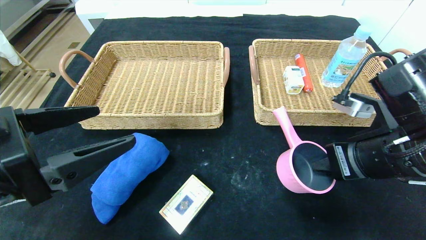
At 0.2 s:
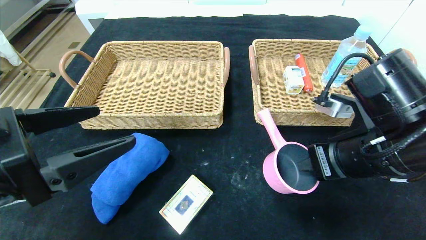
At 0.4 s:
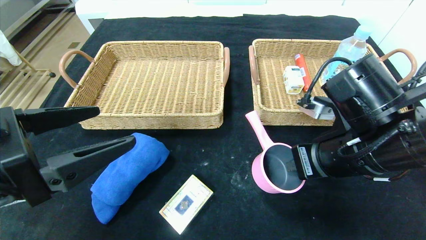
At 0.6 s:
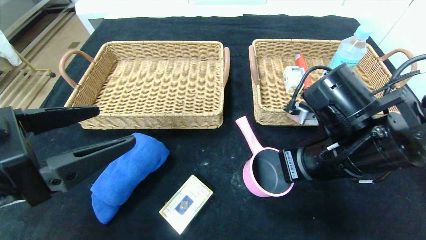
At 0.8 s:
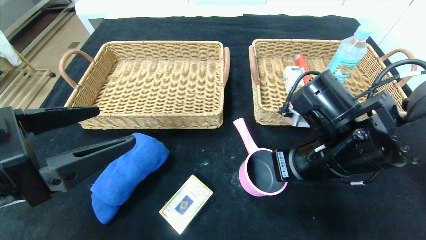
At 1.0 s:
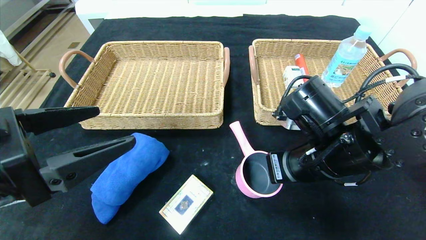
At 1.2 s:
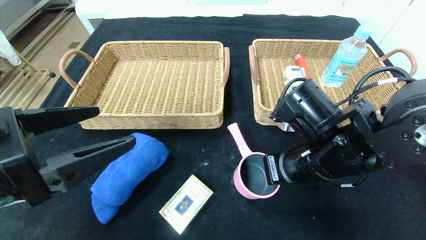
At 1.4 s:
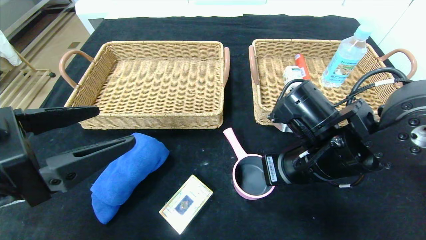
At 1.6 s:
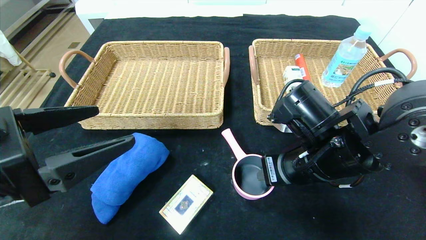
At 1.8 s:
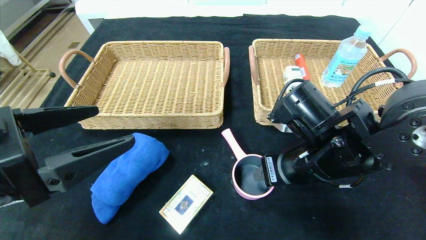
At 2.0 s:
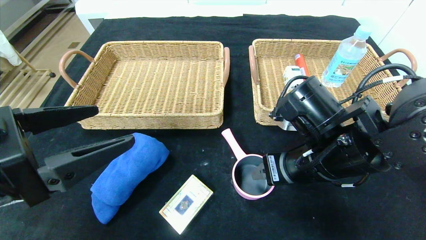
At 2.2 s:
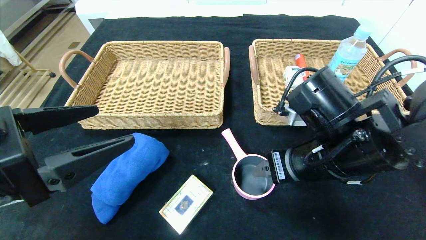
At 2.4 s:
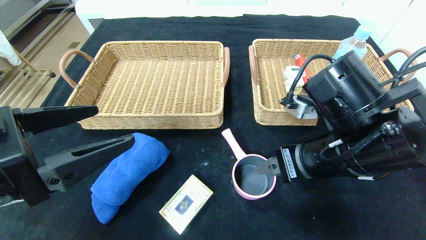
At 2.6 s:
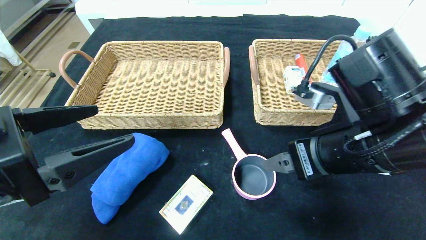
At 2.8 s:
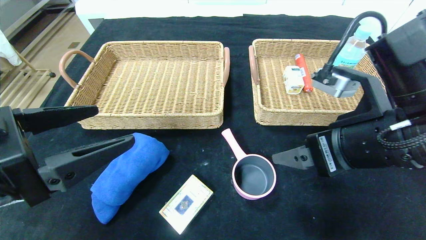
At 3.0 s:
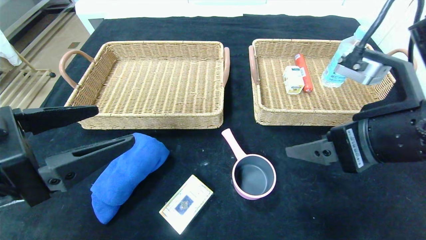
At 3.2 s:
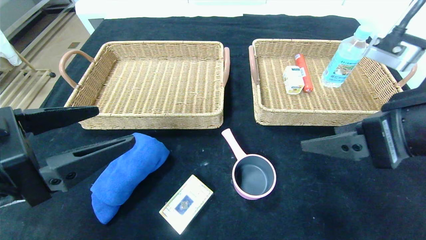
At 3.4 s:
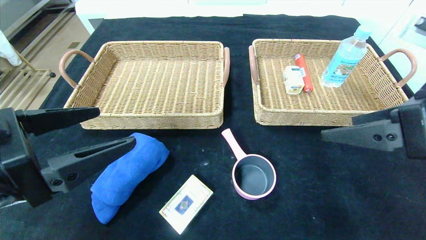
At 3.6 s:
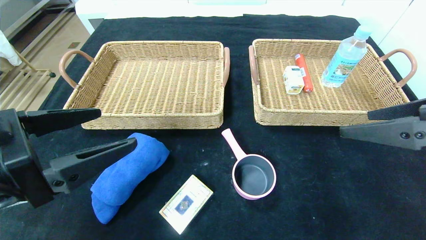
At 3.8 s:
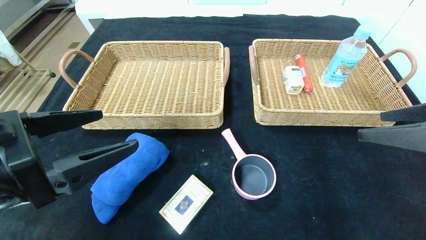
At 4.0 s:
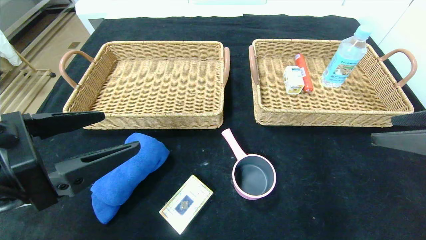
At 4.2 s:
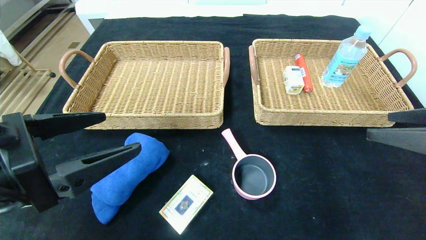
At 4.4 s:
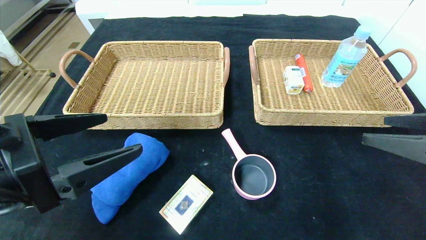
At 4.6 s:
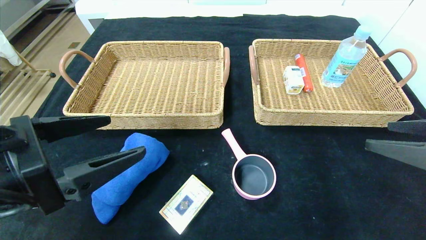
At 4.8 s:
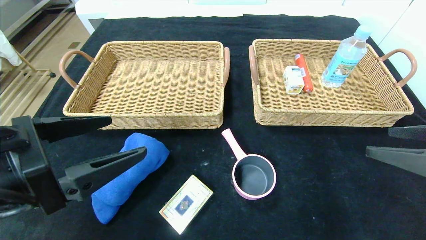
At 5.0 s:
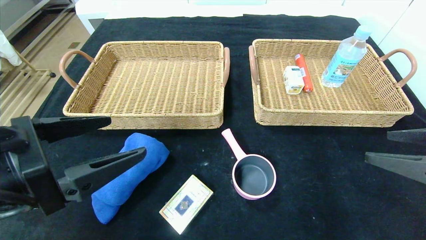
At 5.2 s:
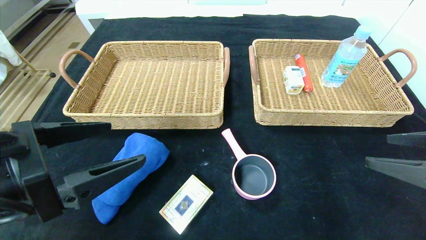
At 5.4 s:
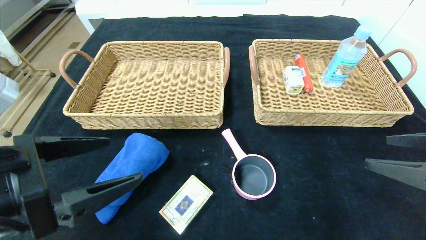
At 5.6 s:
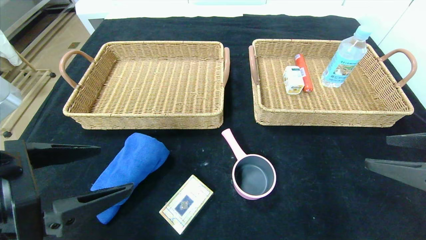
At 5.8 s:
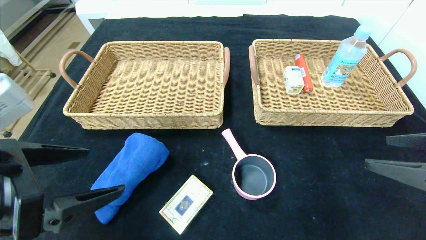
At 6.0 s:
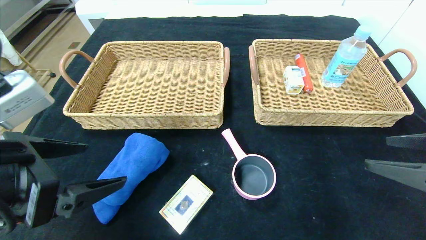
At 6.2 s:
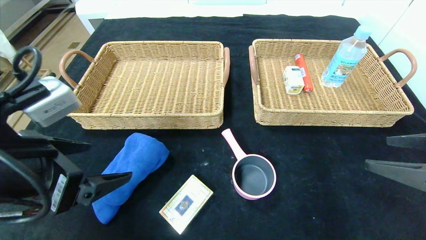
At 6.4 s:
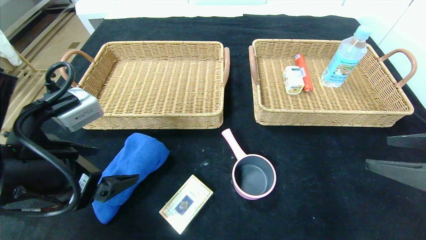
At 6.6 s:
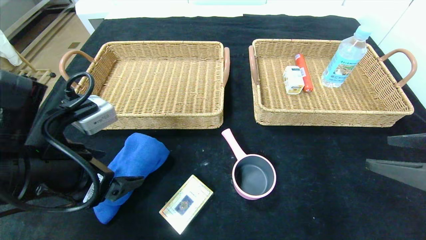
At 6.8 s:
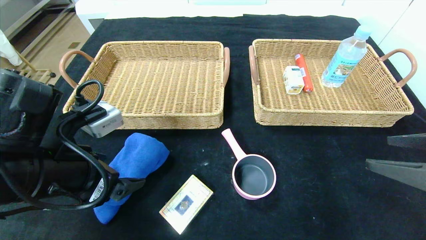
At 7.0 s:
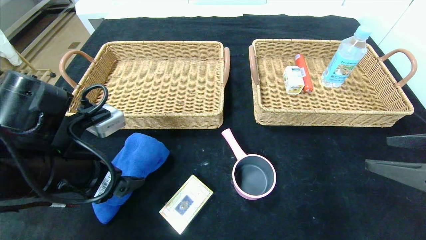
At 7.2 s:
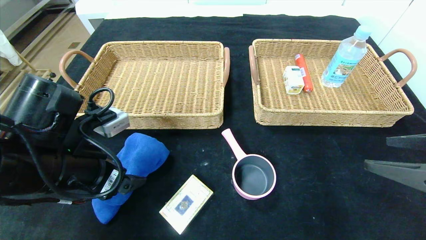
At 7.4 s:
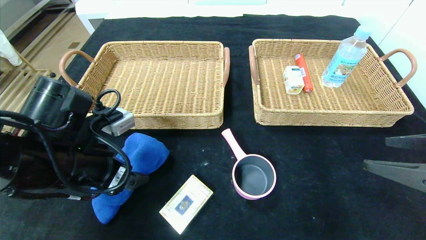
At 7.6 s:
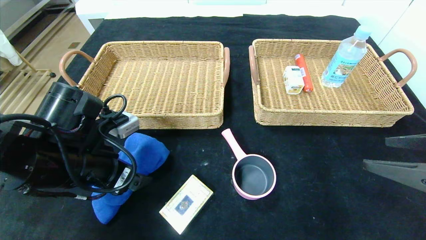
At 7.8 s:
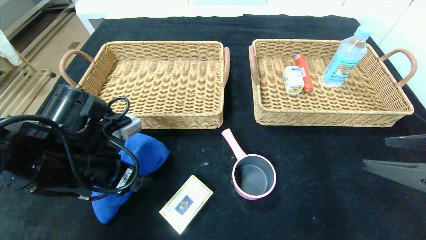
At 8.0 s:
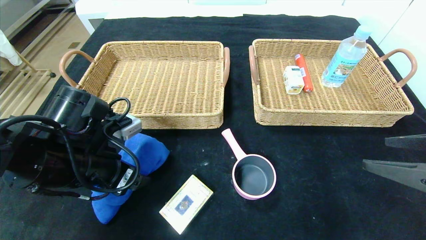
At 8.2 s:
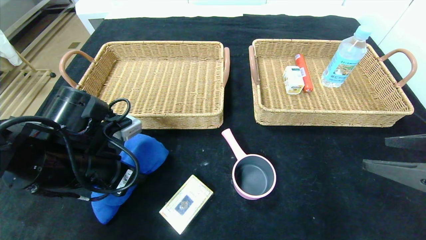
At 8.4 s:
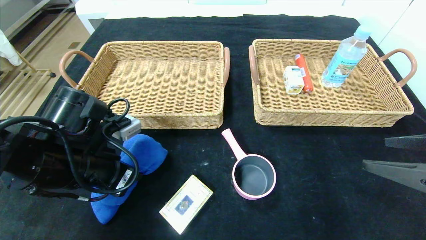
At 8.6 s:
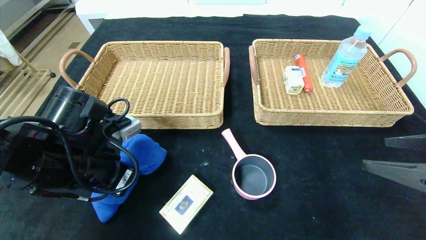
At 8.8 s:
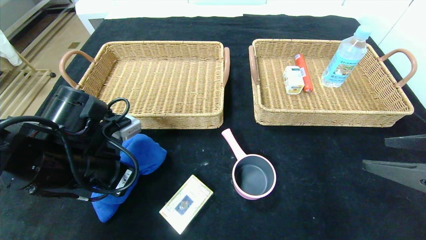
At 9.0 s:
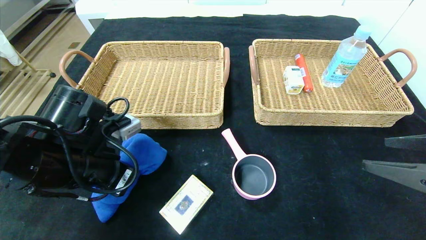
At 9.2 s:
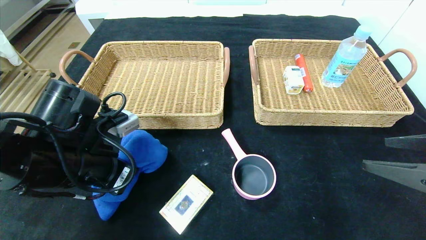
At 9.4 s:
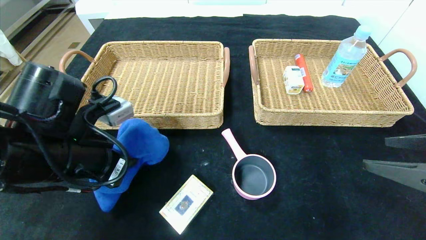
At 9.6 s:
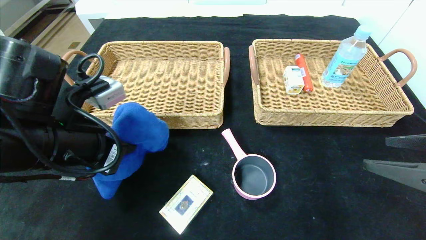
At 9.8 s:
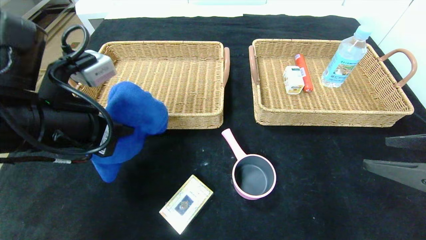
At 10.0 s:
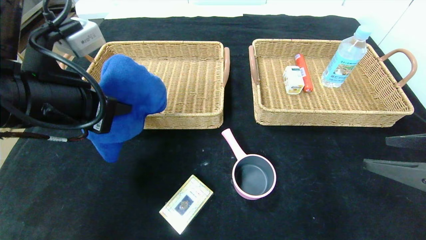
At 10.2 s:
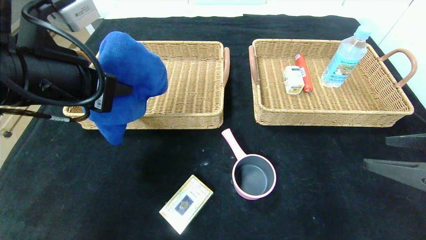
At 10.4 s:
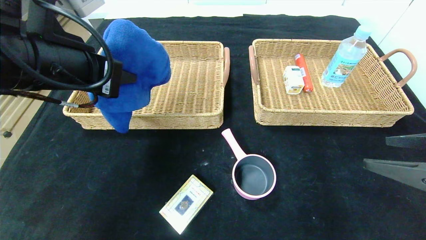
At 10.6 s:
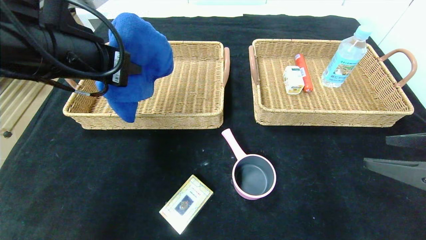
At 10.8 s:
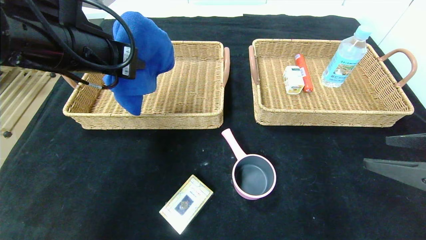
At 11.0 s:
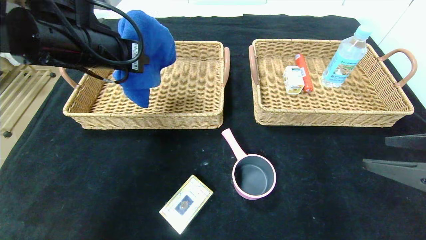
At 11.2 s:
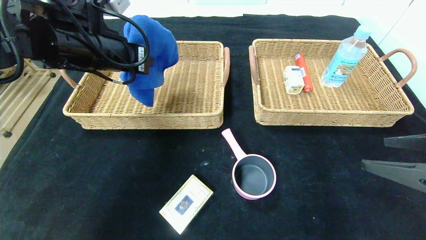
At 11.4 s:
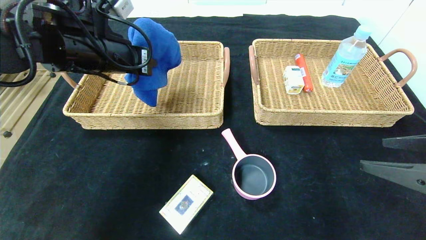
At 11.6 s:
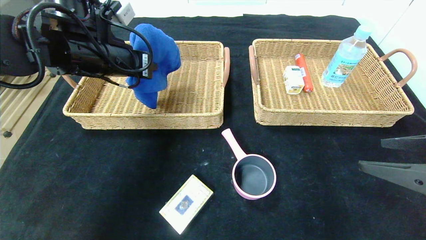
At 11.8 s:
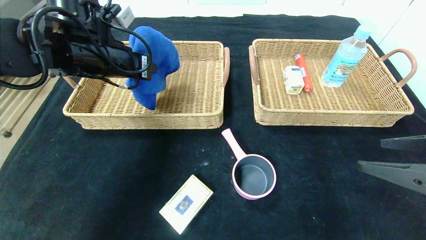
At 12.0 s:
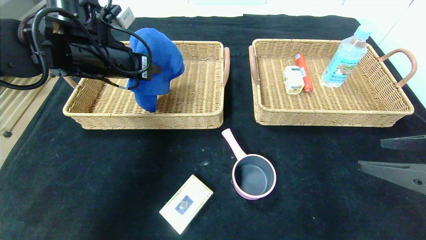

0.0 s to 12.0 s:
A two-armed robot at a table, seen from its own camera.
Step, 0.0 to 3.0 s: Place the pink pot in the center of the table.
0.0 to 1.6 s: The right gripper is displaced to the left by about 10 cm, and opens.
1.6 to 3.0 s: The right gripper heads upward, to the right and backward, covering approximately 10 cm, and opens.
3.0 to 4.4 s: The right gripper moves to the right, roughly 10 cm.
6.0 to 7.6 s: The left gripper shifts approximately 10 cm forward and downward.
7.6 to 9.0 s: The left gripper closes its fingers.
9.0 to 10.4 s: The left gripper moves upward, some 15 cm.
10.4 to 12.0 s: The left gripper moves forward, some 10 cm.

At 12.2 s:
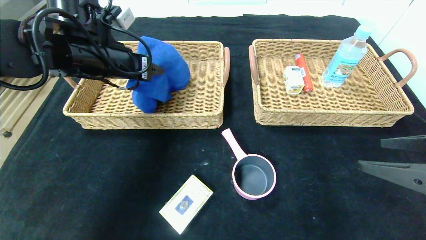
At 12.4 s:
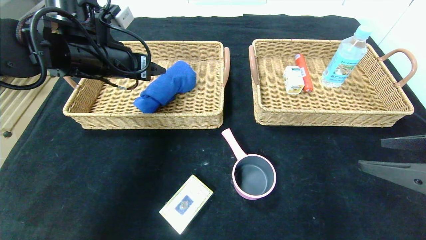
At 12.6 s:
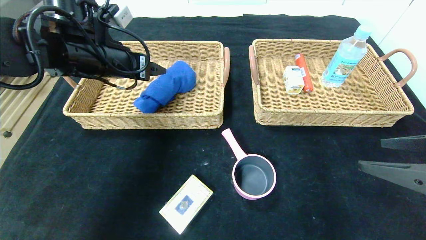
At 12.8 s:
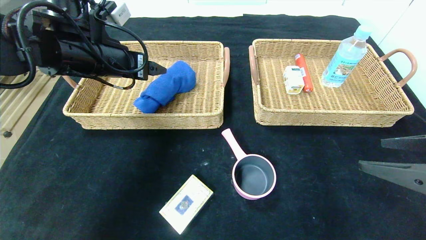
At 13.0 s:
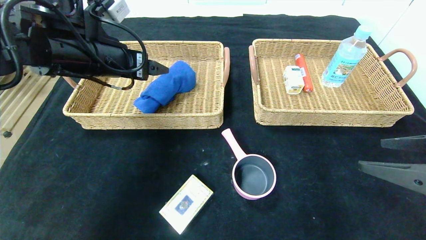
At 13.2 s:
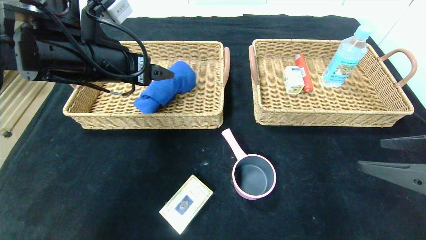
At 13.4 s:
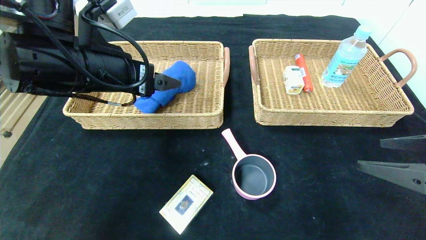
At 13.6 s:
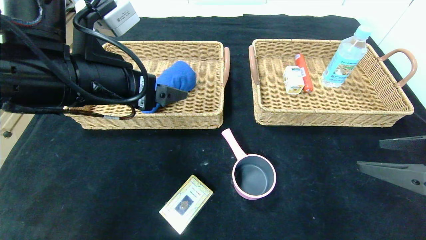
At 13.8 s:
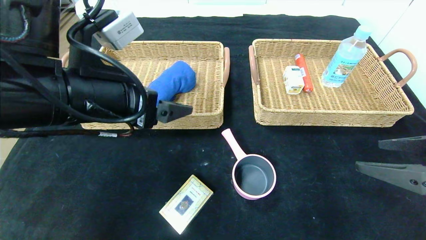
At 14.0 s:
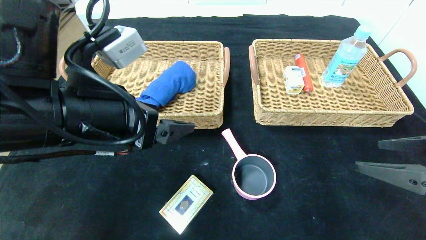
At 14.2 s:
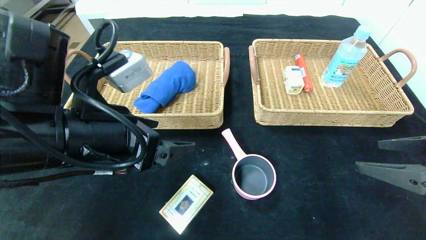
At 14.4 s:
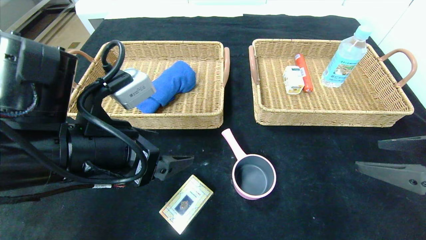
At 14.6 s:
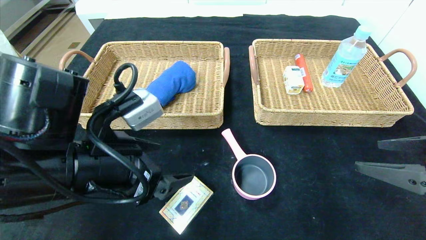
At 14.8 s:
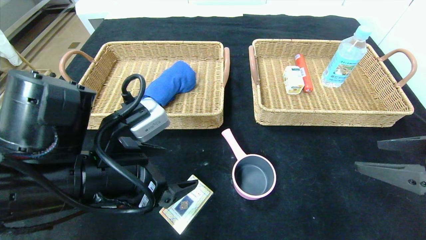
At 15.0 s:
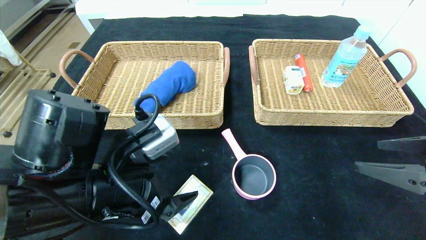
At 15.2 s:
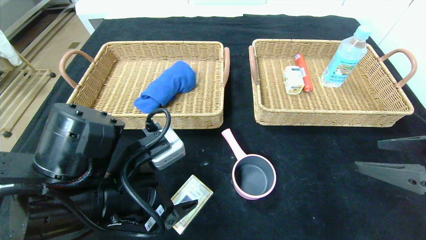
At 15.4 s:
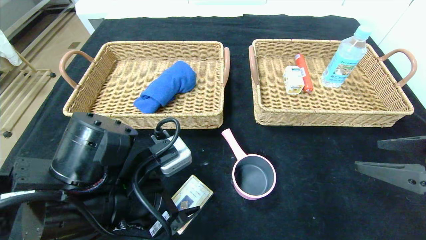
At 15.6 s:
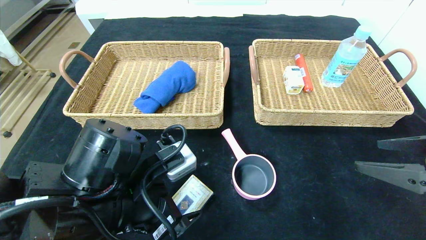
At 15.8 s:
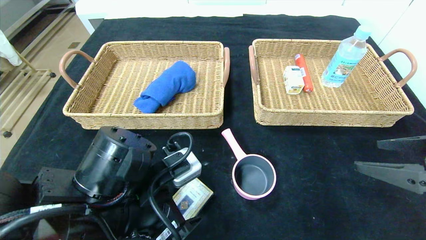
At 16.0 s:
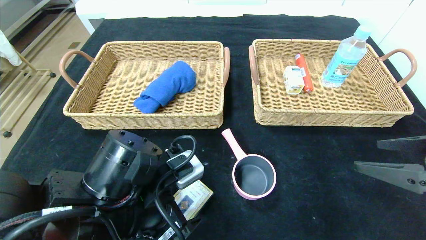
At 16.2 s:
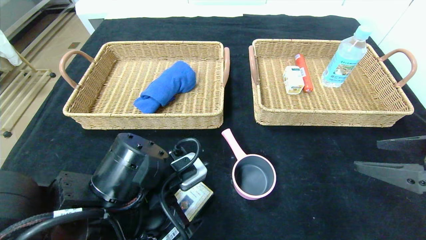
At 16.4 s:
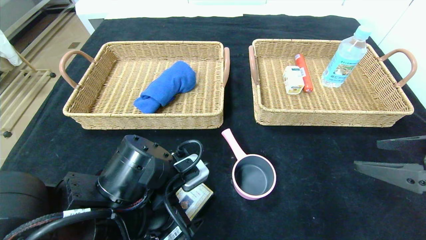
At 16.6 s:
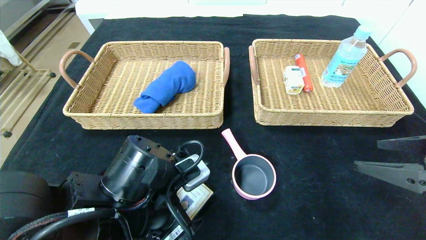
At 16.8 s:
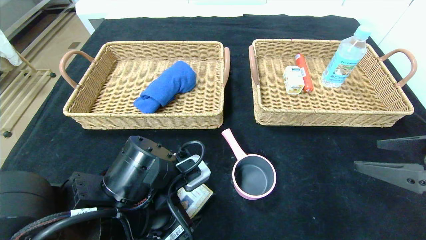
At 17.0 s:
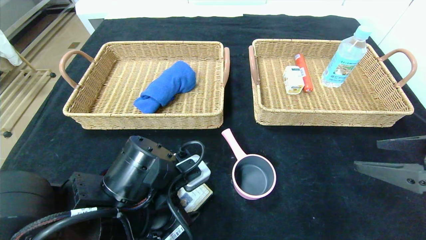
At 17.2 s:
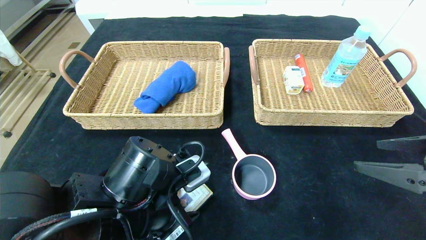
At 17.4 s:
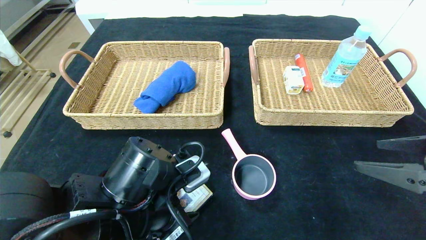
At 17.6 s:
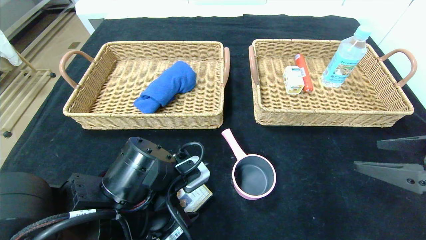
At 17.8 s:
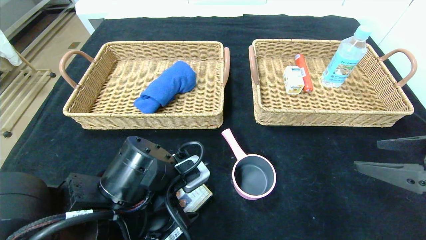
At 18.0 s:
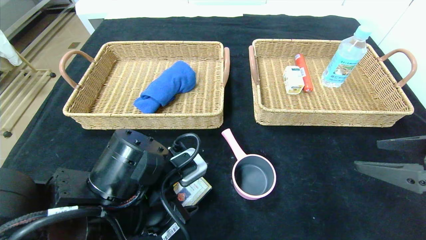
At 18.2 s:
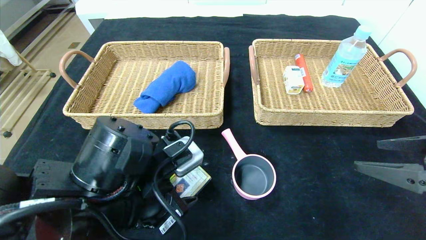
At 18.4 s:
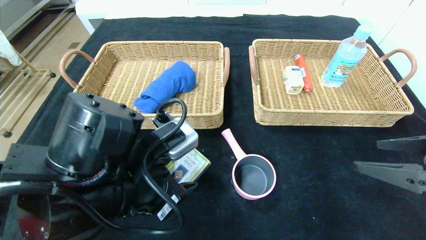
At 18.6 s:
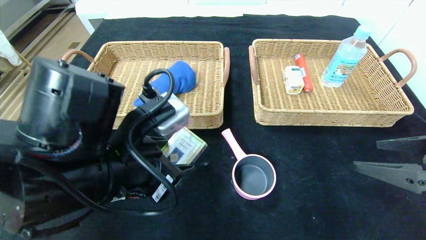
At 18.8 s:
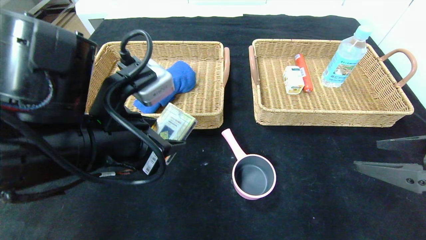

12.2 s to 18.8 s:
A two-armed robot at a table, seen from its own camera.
12.2 to 13.8 s: The left gripper goes about 15 cm backward, and opens up.
13.8 to 15.4 s: The left gripper travels downward by some 10 cm.
15.4 to 17.2 s: The left gripper closes.
17.2 to 18.8 s: The left gripper goes about 10 cm upward.
